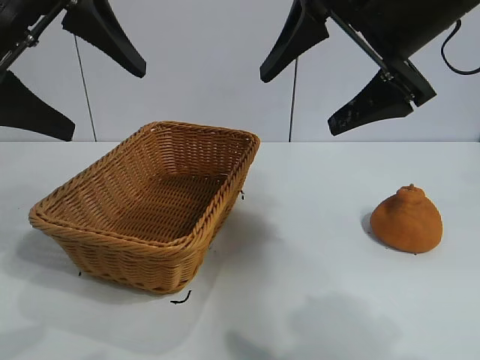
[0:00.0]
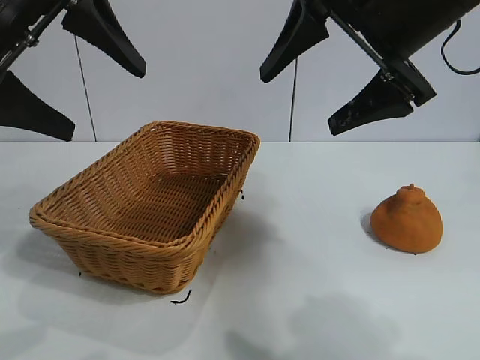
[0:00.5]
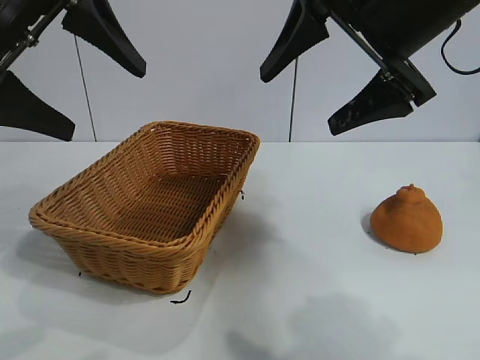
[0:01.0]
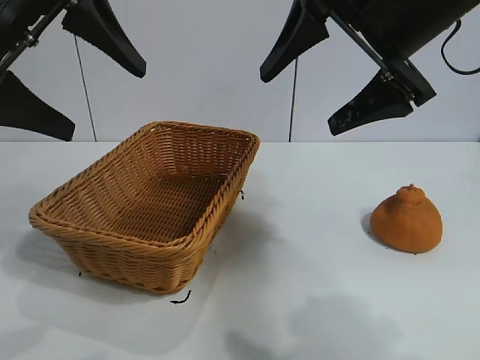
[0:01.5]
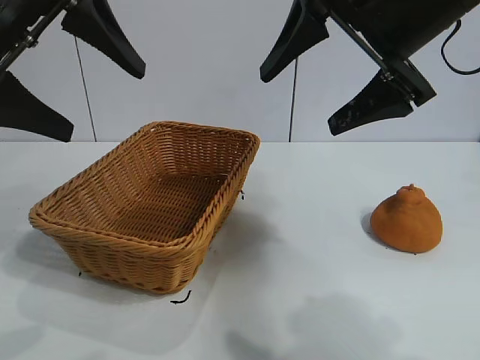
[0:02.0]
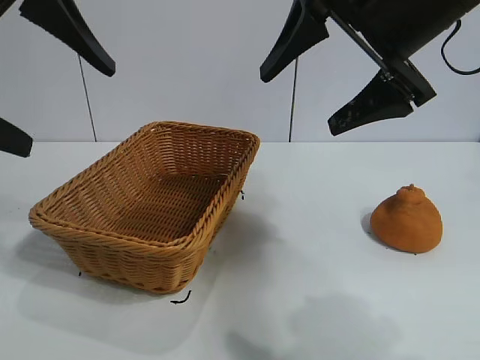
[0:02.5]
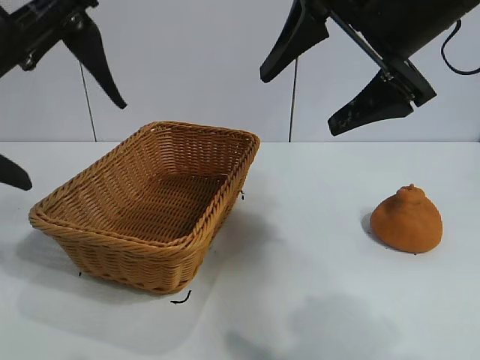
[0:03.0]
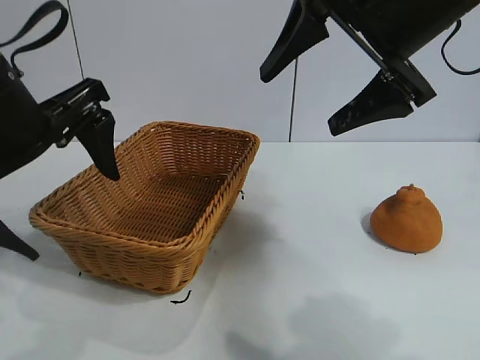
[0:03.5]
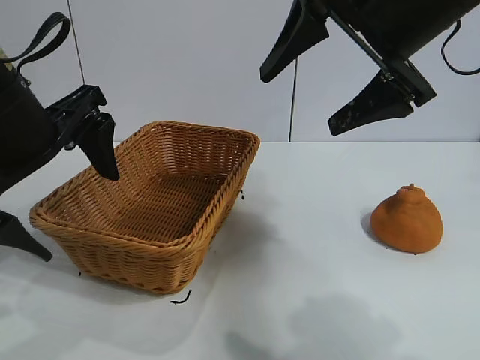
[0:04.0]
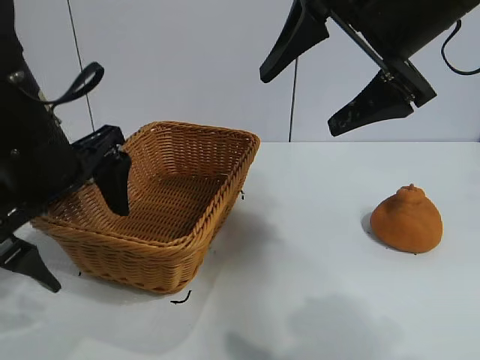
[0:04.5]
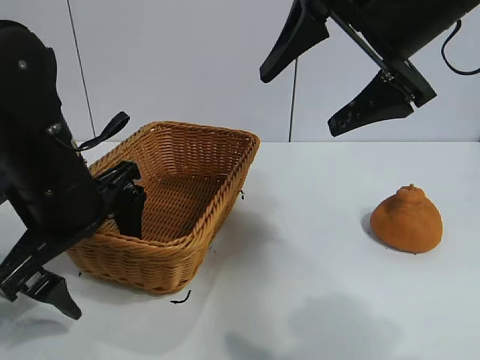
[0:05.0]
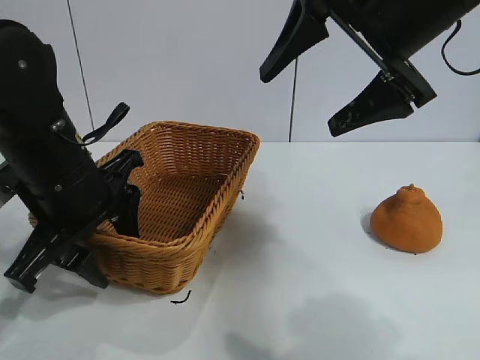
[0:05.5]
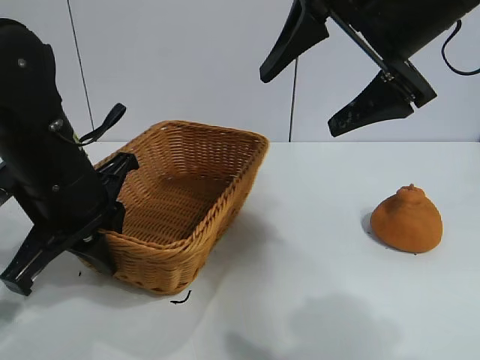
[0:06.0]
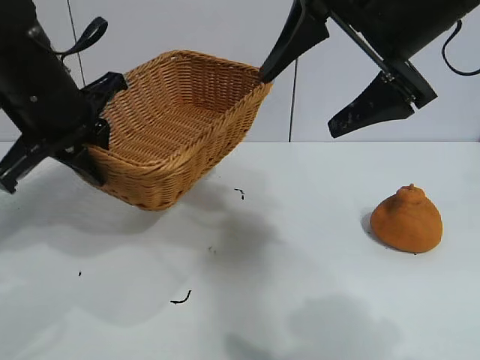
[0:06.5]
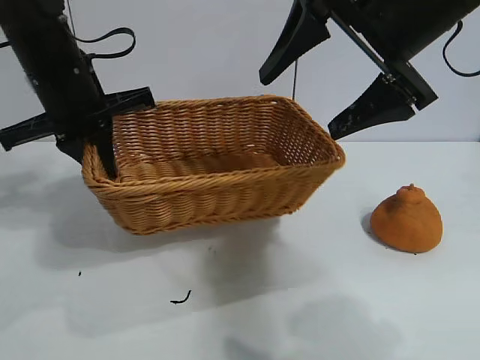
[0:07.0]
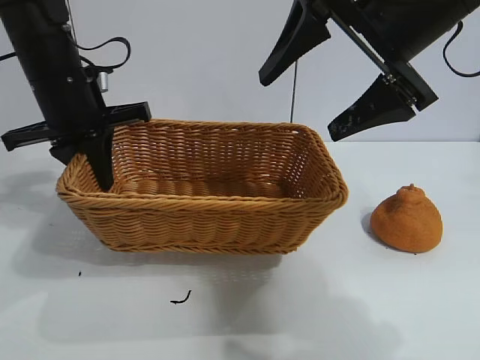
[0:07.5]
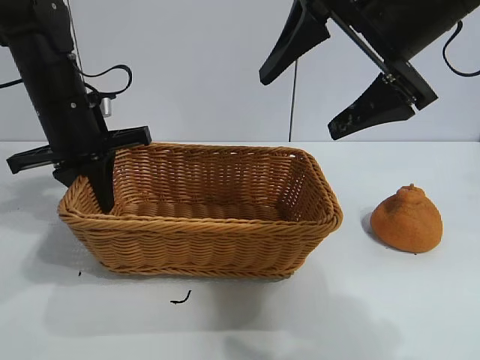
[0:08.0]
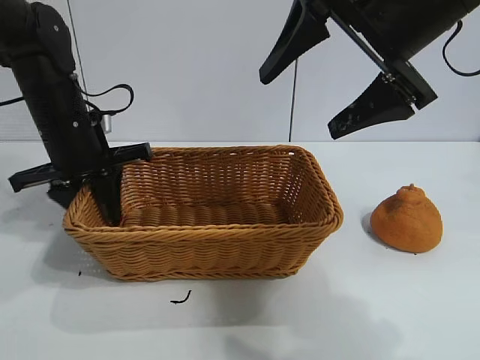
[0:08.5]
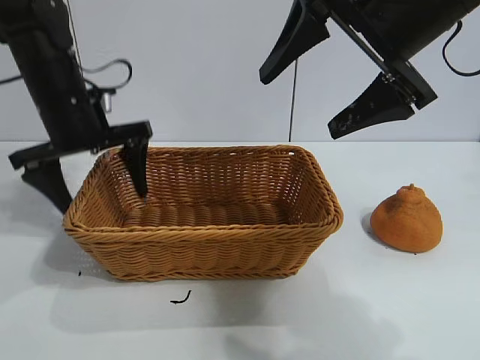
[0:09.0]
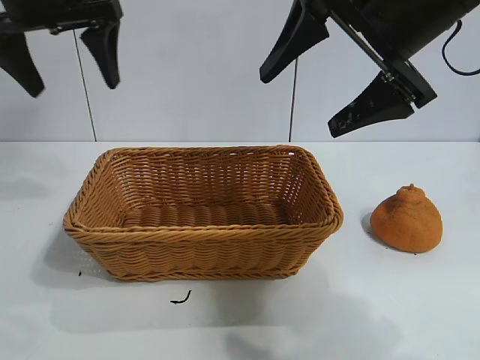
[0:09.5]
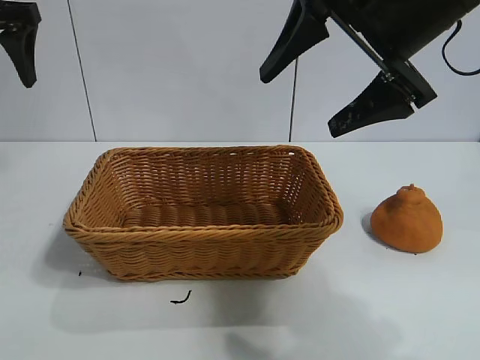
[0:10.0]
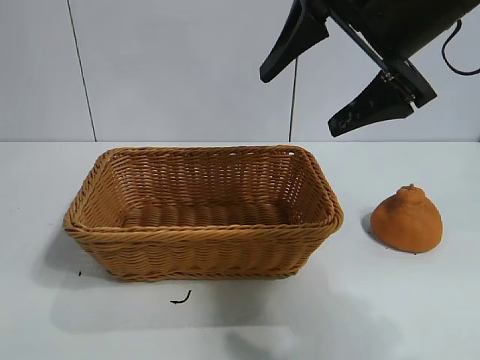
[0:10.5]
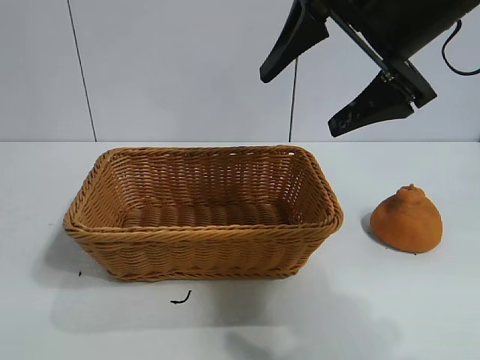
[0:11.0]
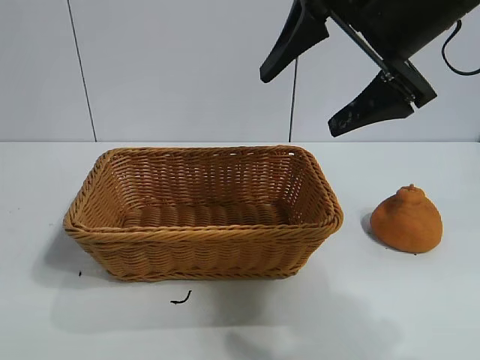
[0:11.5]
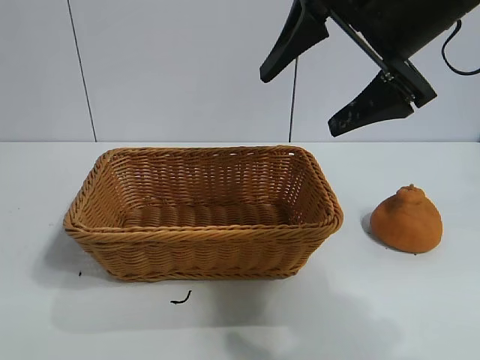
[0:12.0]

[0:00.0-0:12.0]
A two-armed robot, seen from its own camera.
Task of the whole recording: pick up the orange and put it into the basket.
Step, 0:02.0 to 0:06.0: Grasp the basket with left gripper.
Step, 0:06.5 to 0:08.5: Place the basket in the center of view with left gripper.

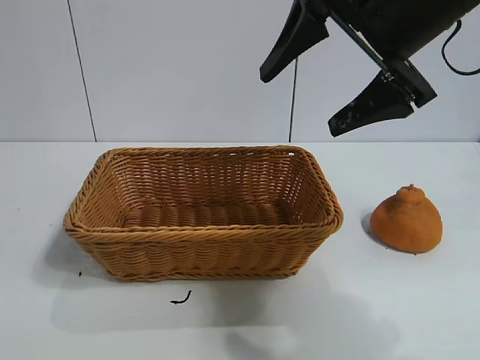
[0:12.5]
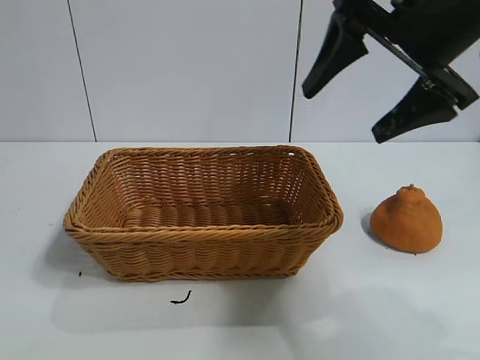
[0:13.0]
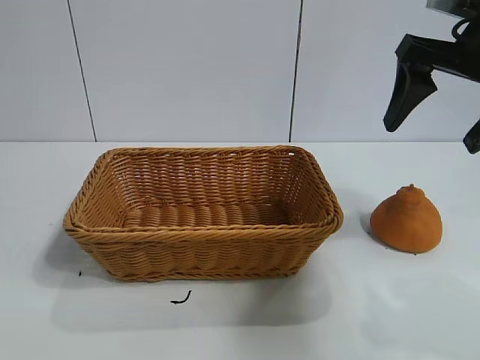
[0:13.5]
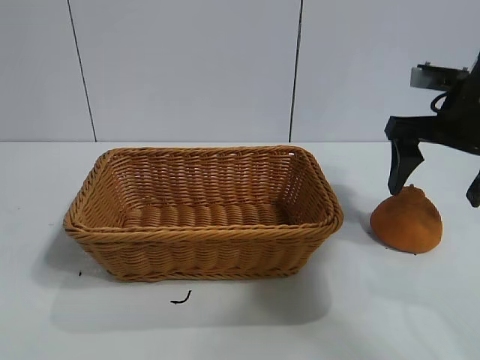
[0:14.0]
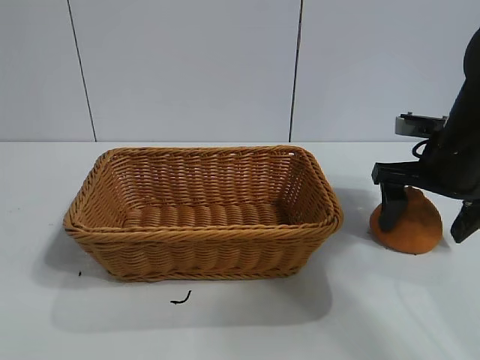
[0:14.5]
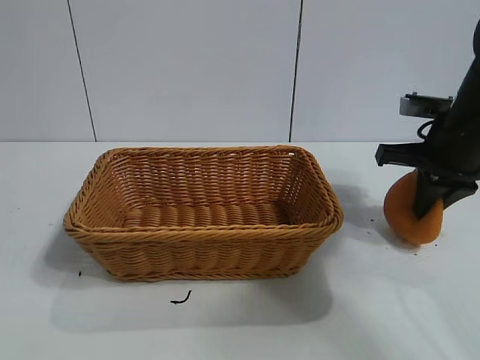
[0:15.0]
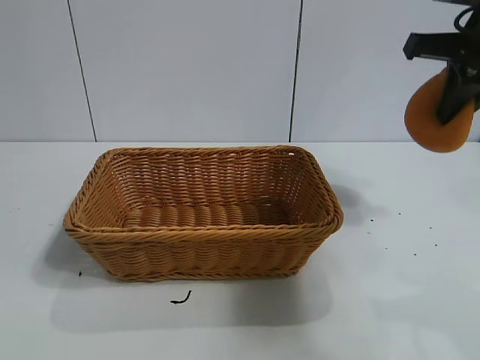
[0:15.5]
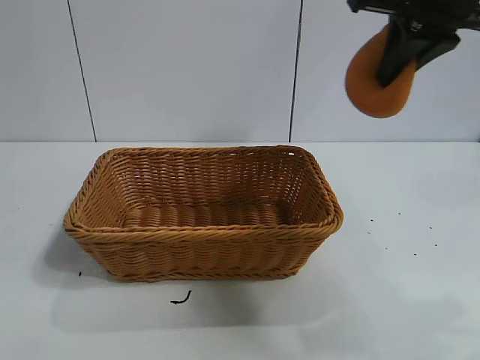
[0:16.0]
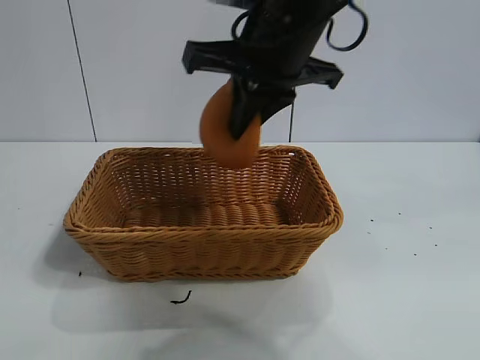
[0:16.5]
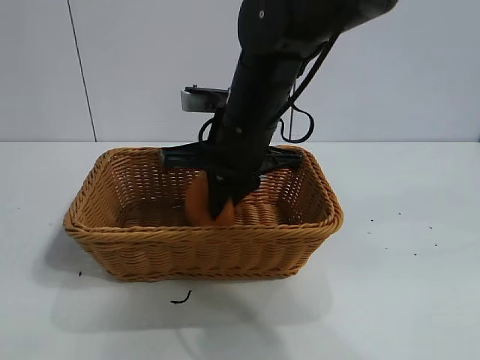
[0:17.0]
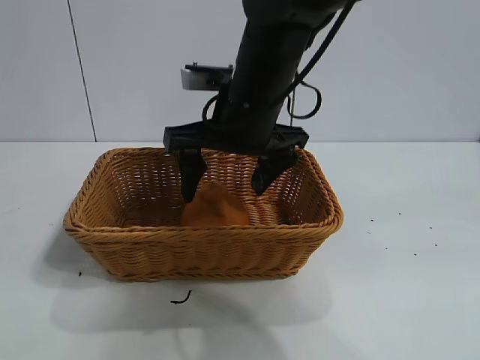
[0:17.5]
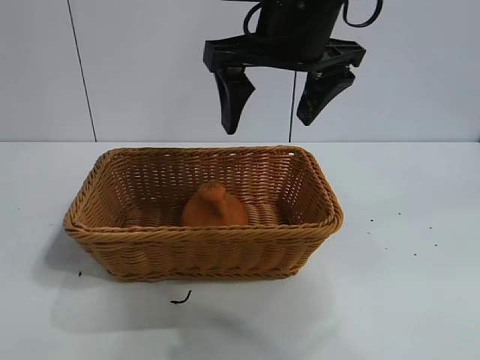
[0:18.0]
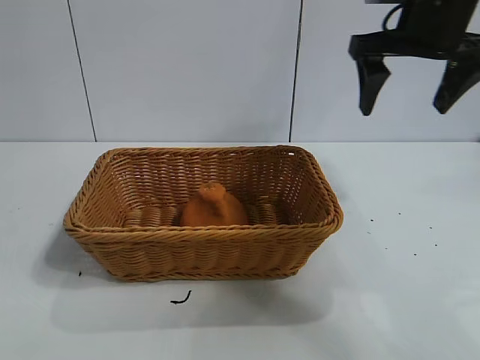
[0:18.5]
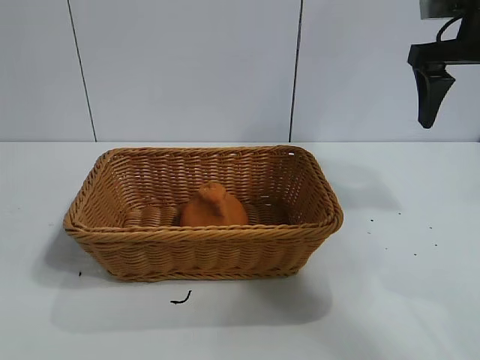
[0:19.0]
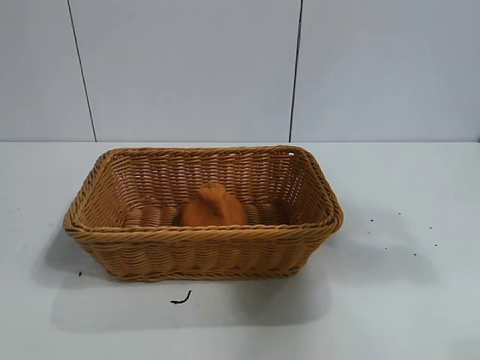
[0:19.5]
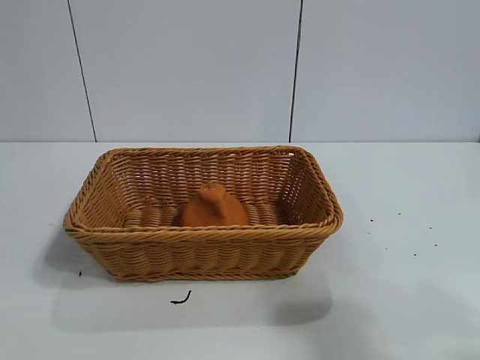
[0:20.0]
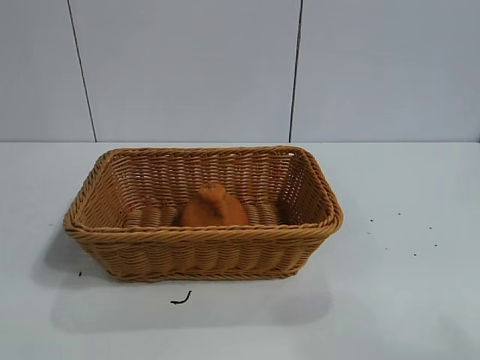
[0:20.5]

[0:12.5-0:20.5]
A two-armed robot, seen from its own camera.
Task of the whole recording: pick up the orange and put it into the basket.
Step, 0:12.5 to 0:14.5: Grasp the orange with right gripper.
Step, 0:15.5 to 0:17.0: Place the orange in the basket with right gripper.
